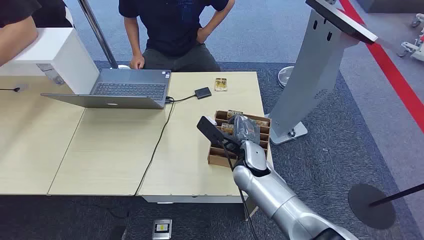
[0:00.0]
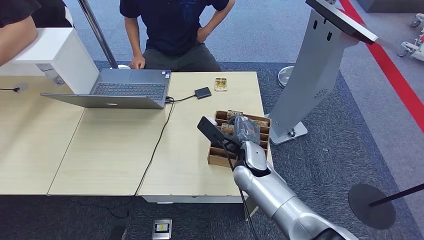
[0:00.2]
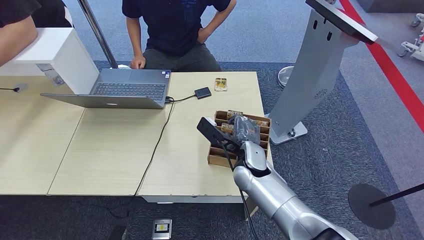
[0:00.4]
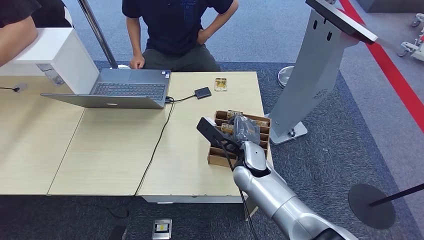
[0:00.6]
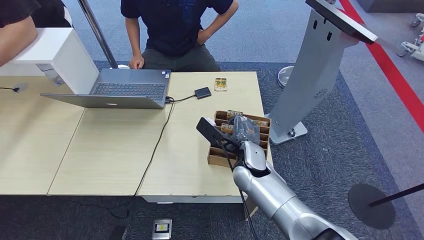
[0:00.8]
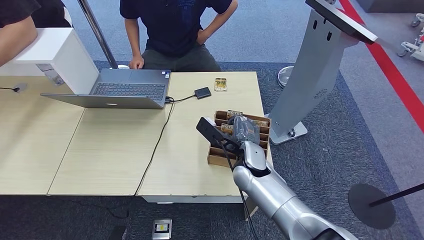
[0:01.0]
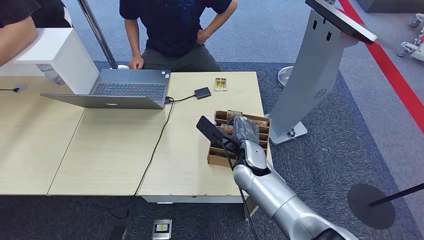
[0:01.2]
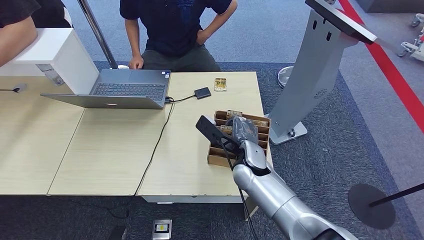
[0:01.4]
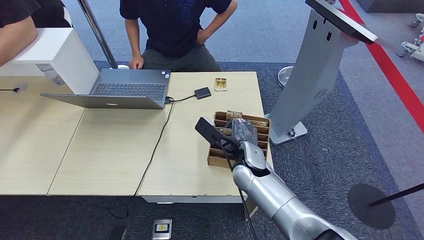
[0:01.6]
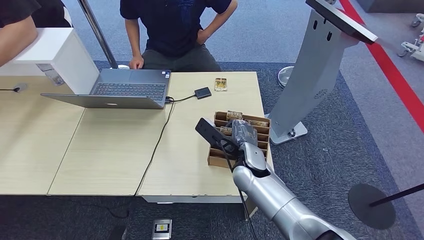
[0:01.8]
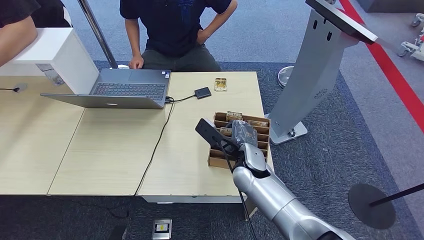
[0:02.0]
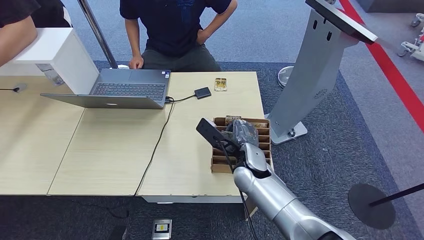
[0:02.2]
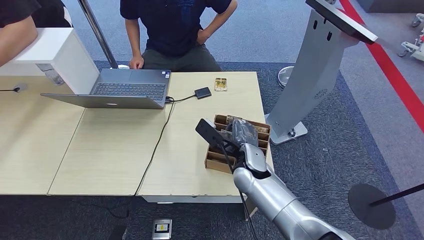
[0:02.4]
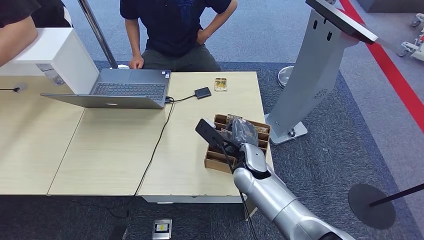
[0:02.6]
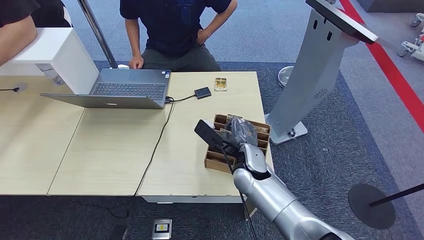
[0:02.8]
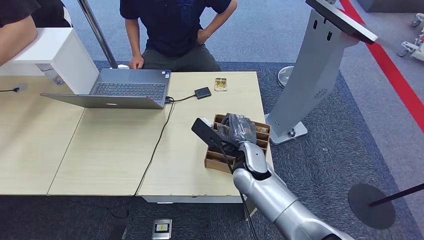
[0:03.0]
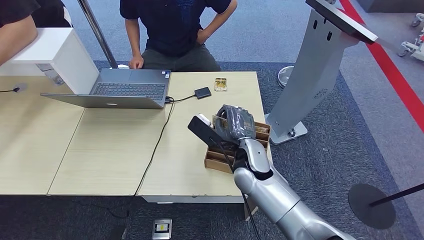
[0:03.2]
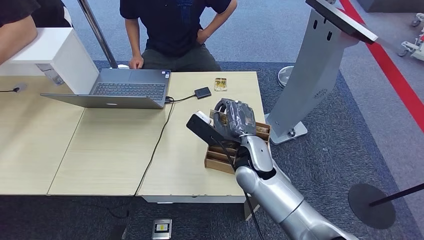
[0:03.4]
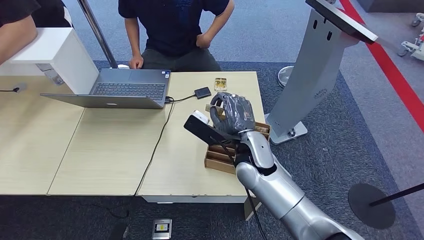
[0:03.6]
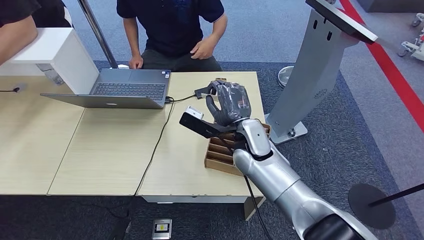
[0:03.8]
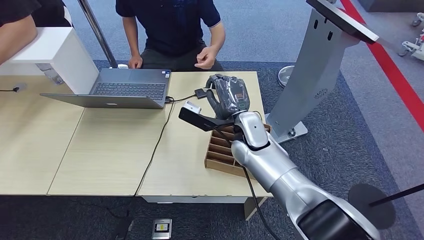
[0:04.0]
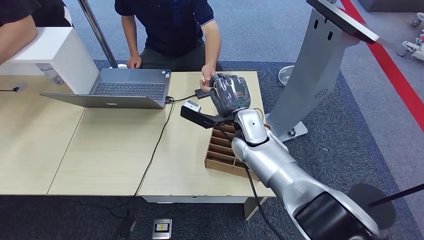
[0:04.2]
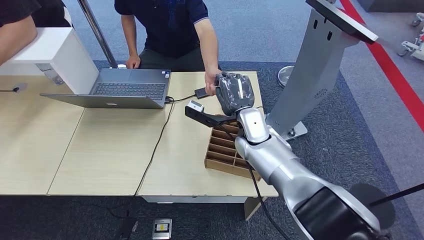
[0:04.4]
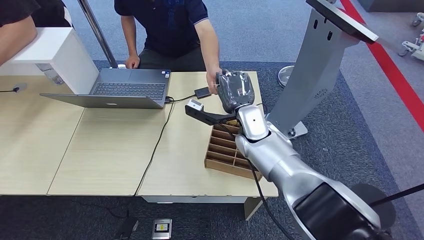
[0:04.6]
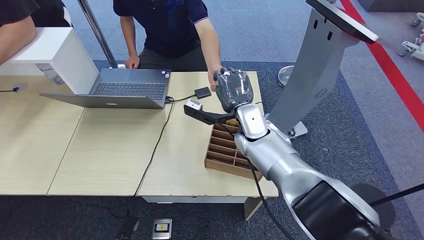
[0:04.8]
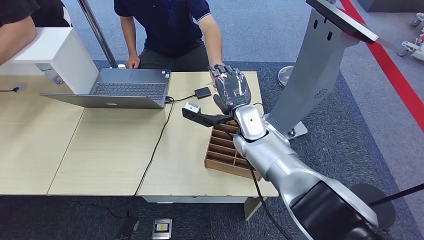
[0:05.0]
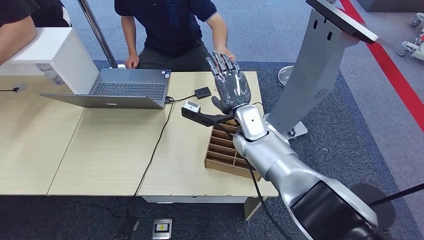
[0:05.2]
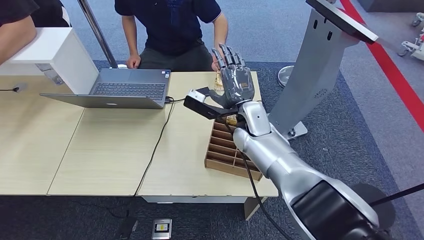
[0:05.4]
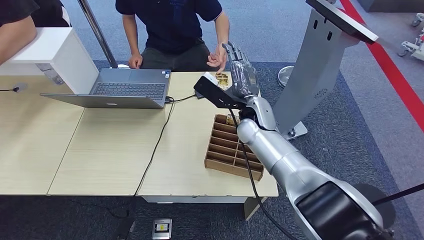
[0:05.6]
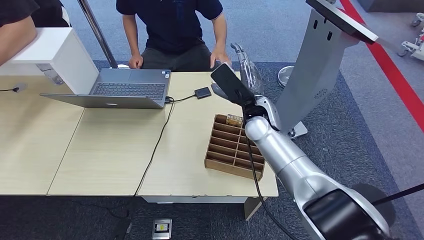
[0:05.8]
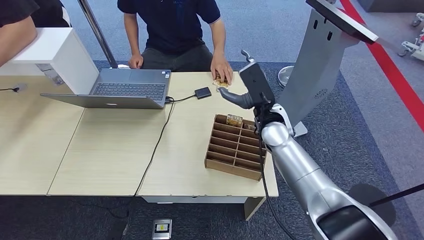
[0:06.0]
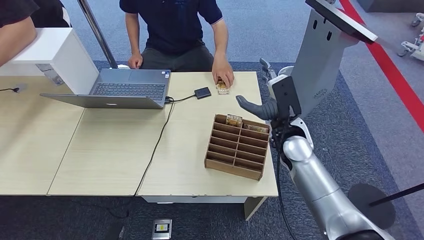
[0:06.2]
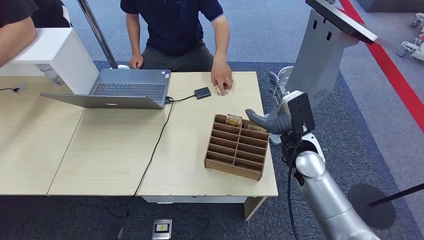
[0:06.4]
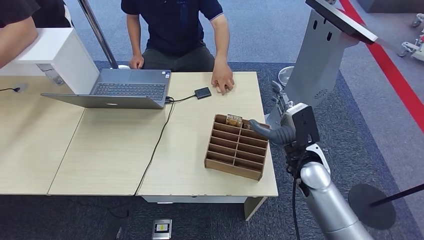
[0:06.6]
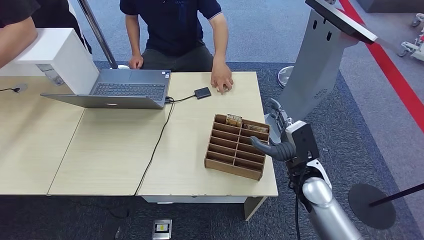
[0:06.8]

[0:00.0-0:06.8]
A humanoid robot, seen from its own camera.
Step, 0:00.0 to 0:03.6: Pick up the room card from the card holder.
Step, 0:03.8 to 0:06.8: Hand the room card to the target.
0:01.4 to 0:02.8: Both hands stay put.
0:02.8 to 0:04.0: The right hand travels upward and forward by some 10 cm.
0:04.0 to 0:05.4: The hands stay close to where they were, moving slightly.
0:05.4 to 0:06.8: The right hand moves to the right, backward and downward, some 20 cm.
